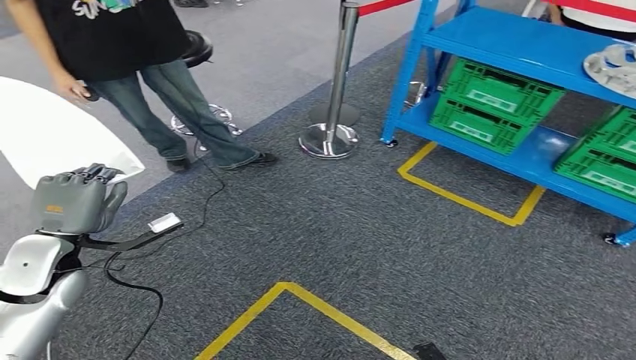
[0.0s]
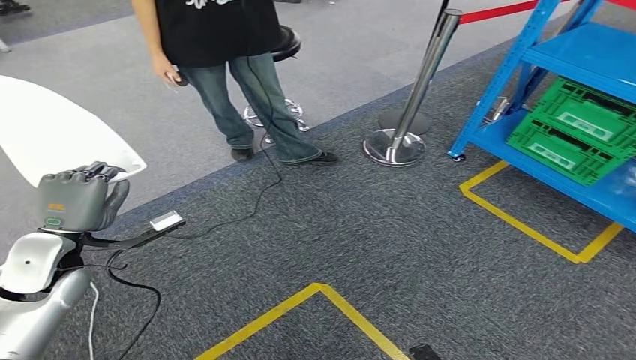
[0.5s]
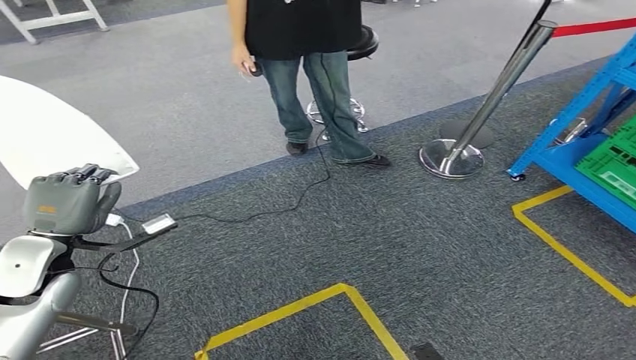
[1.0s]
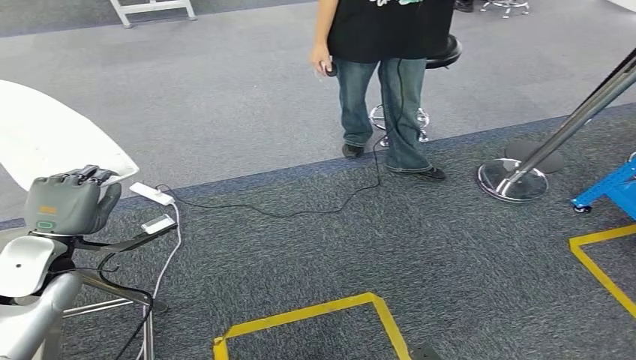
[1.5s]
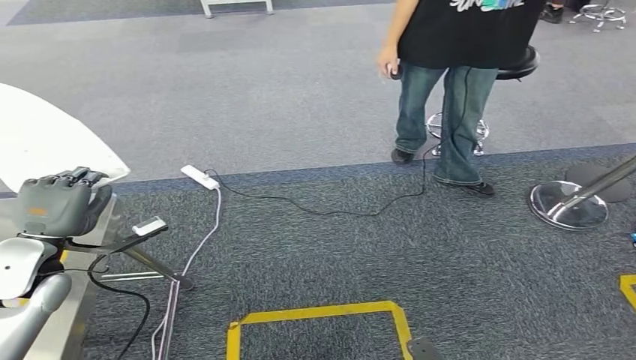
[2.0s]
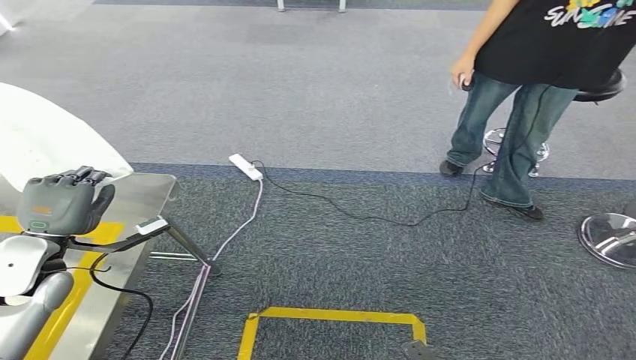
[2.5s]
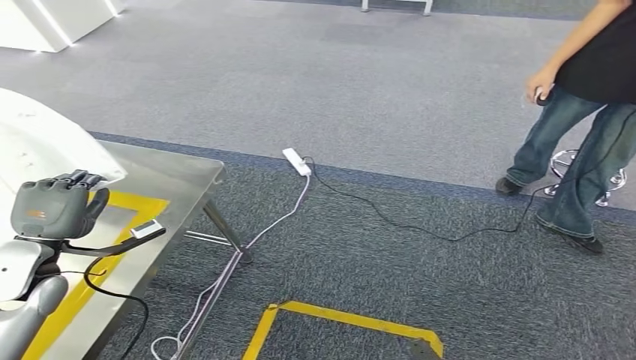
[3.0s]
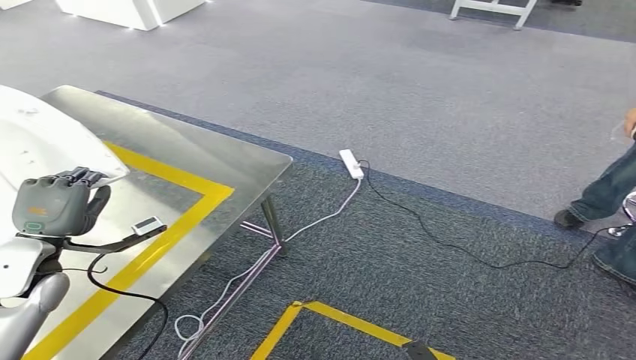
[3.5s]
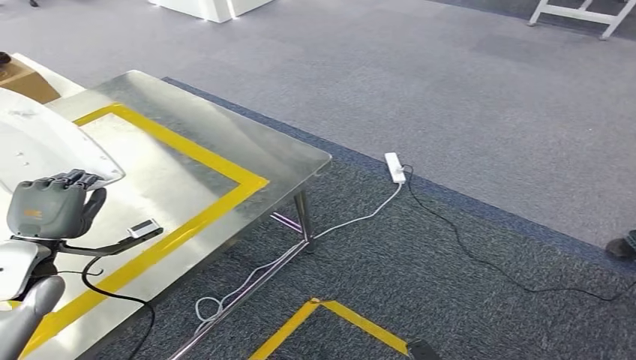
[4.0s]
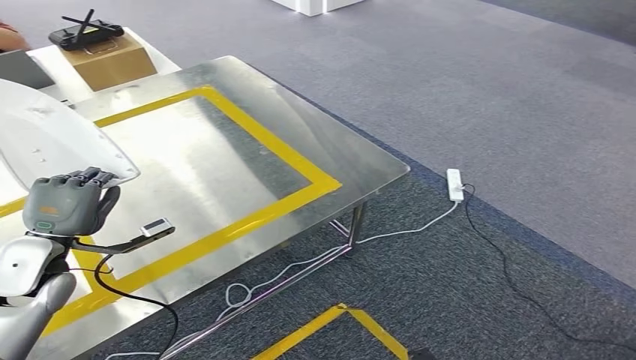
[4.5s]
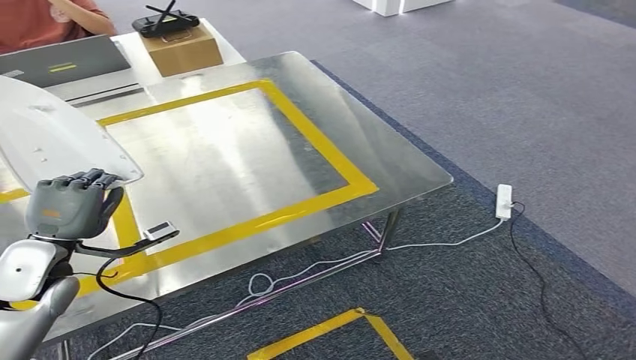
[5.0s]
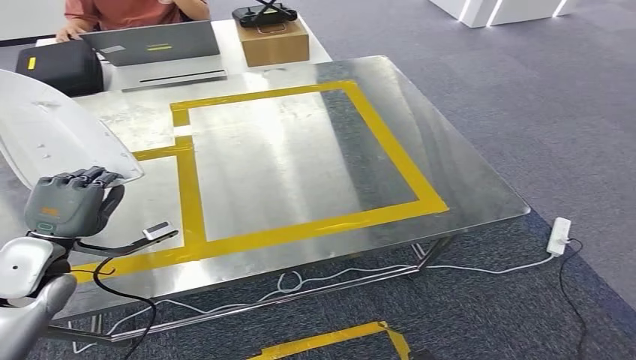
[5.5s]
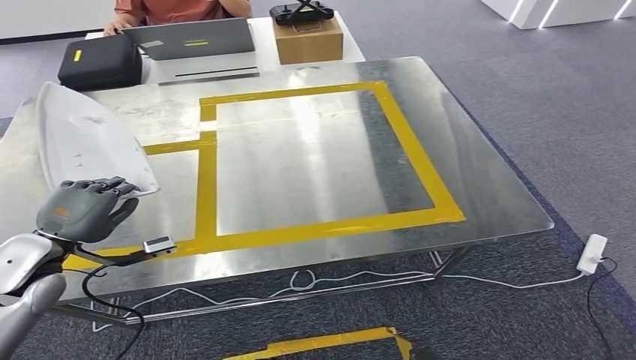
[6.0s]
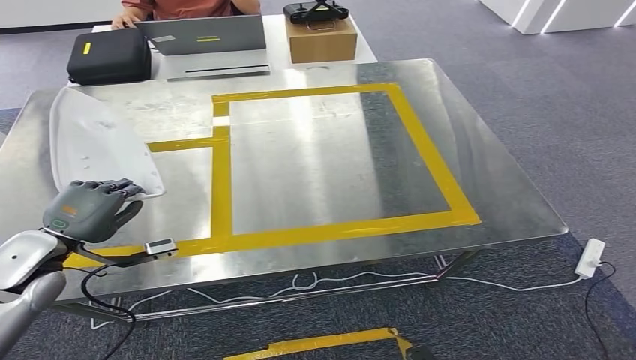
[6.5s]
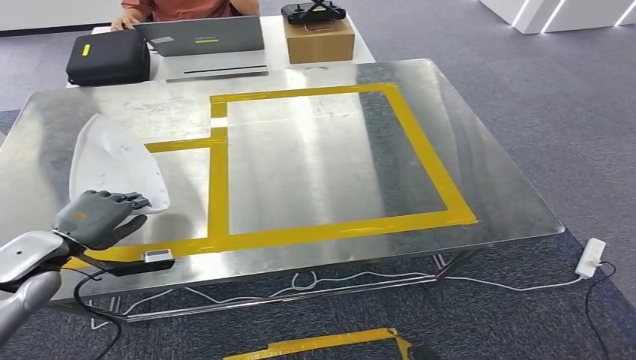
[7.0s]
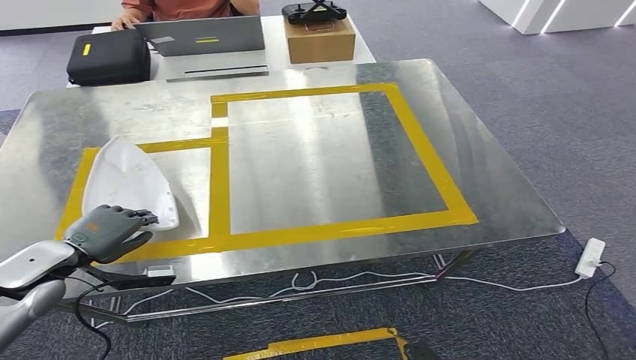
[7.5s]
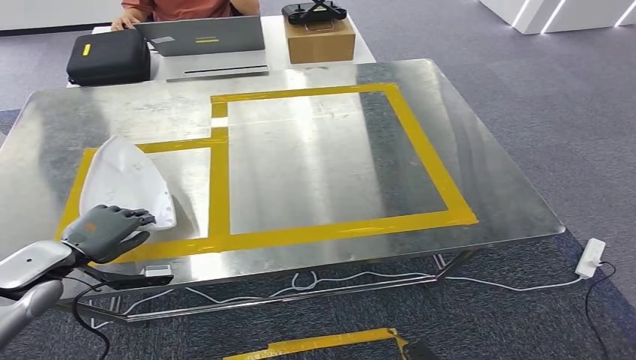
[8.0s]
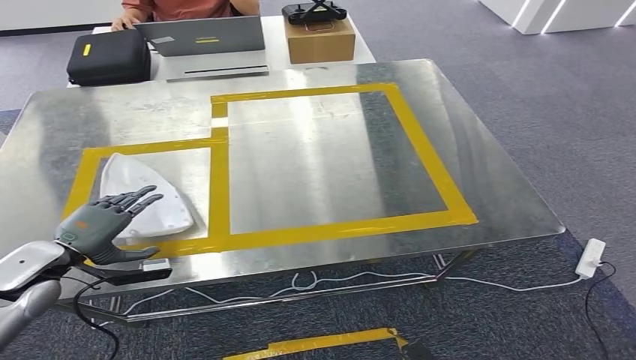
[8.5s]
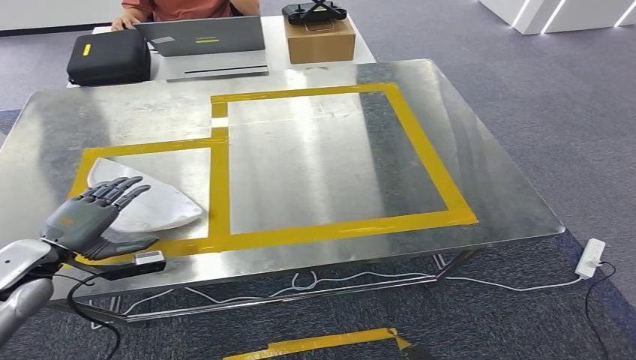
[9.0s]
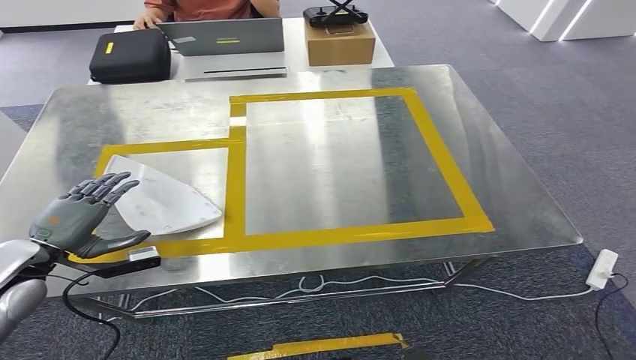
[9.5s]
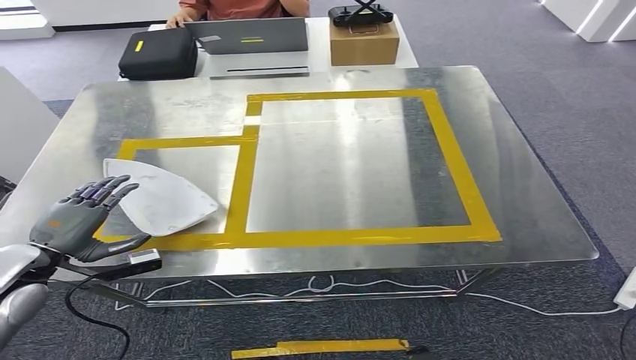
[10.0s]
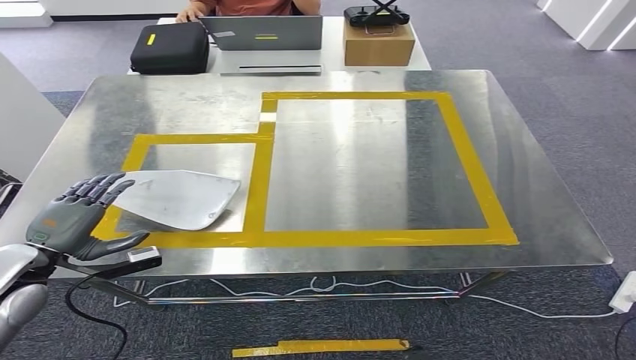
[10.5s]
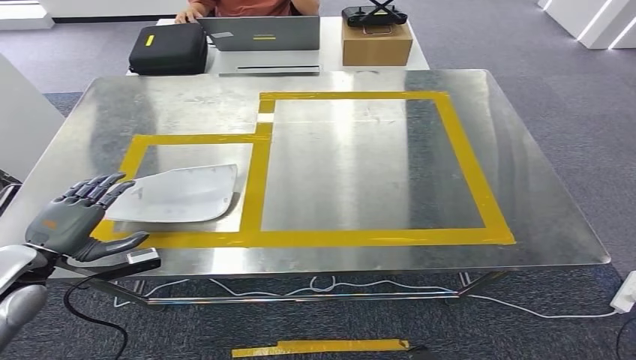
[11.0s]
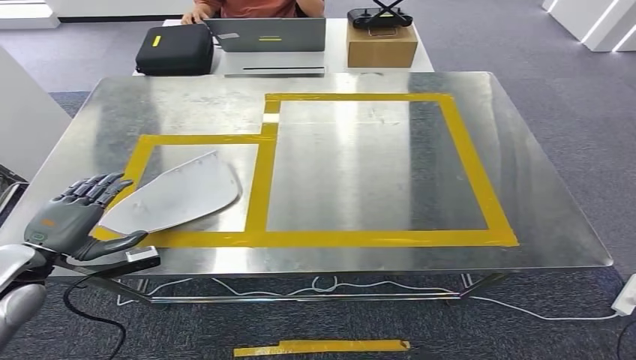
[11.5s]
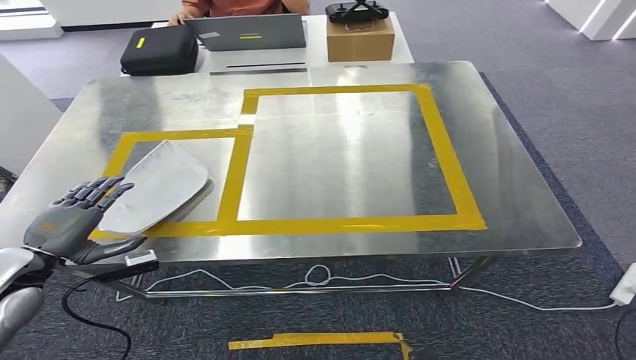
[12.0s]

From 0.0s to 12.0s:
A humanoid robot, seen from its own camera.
Step, from 0.0s to 5.0s: Move the small component to the workbench.
Step, from 5.5s to 10.5s: Insert the small component into the corresponding slot on the workbench.

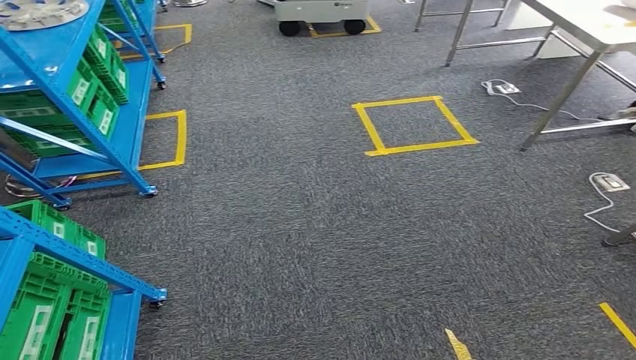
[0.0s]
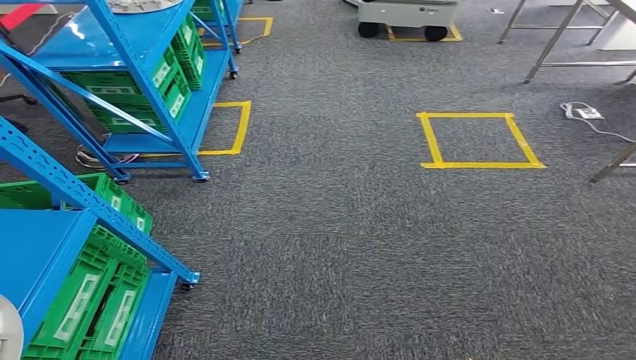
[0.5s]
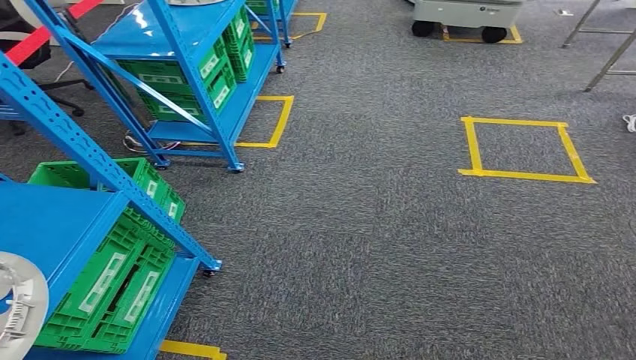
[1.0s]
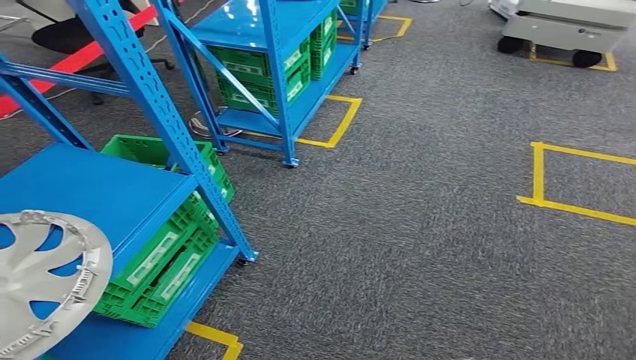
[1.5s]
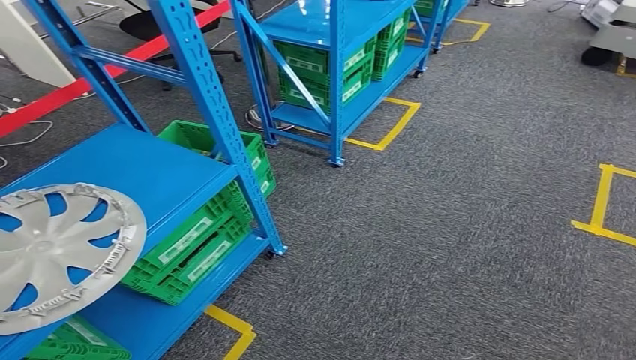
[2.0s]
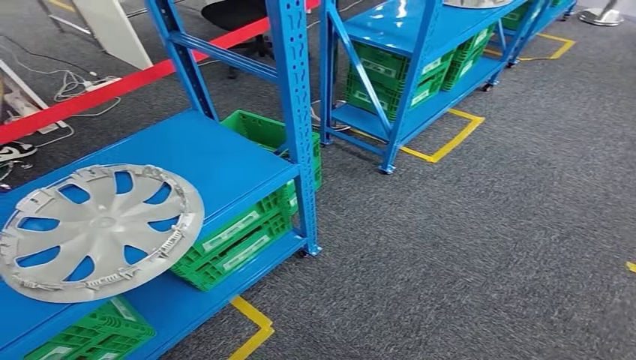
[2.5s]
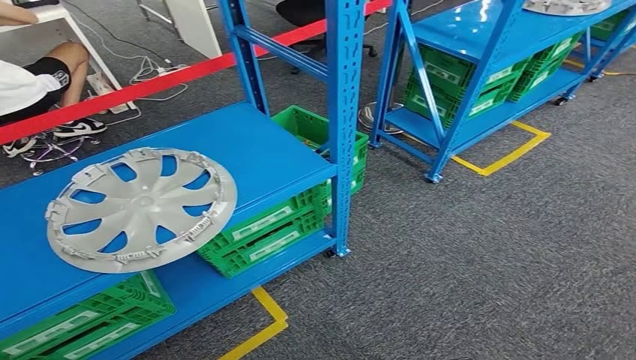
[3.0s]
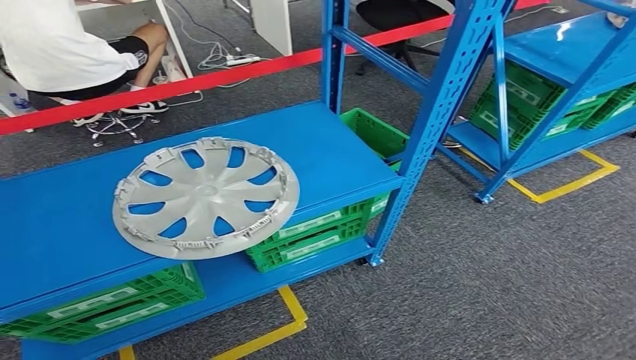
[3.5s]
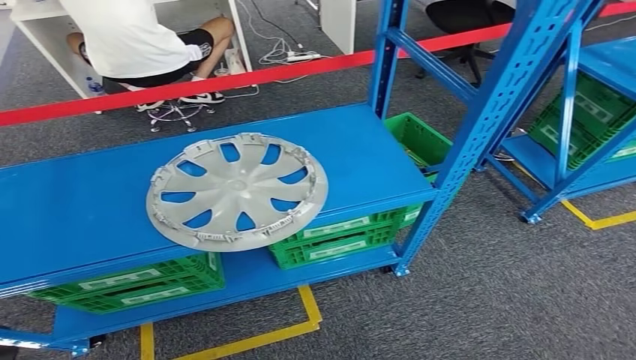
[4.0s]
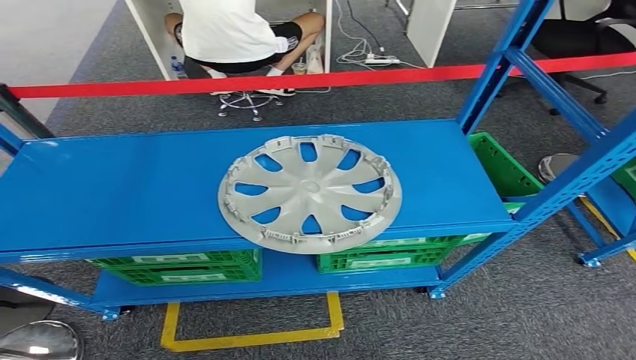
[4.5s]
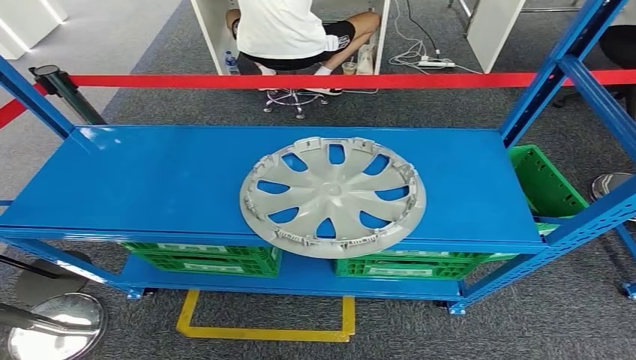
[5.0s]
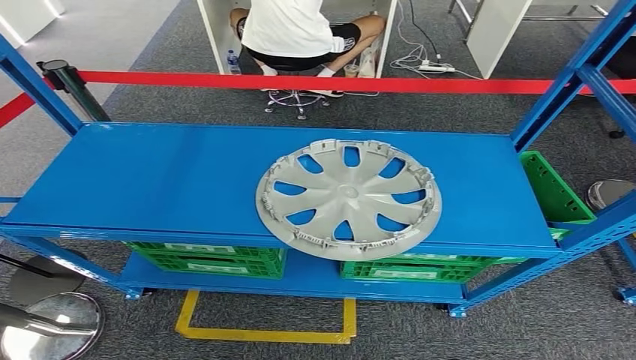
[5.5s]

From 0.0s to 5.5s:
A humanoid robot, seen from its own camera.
Step, from 0.0s to 5.5s: Return to the initial position at the workbench.
